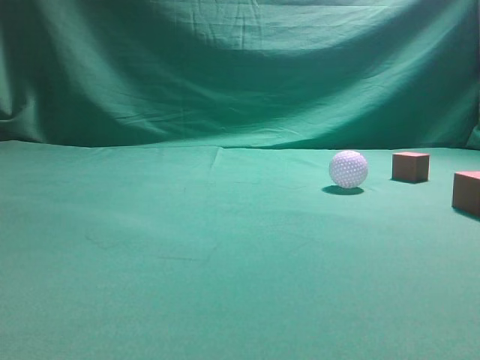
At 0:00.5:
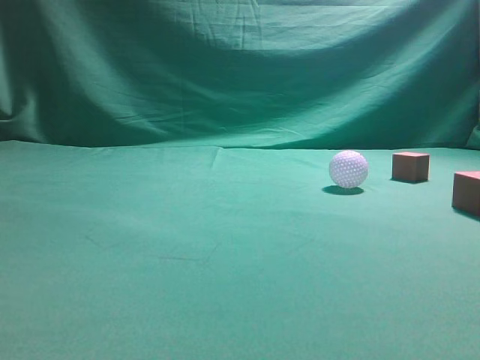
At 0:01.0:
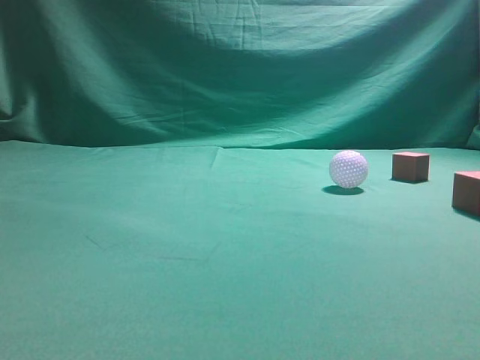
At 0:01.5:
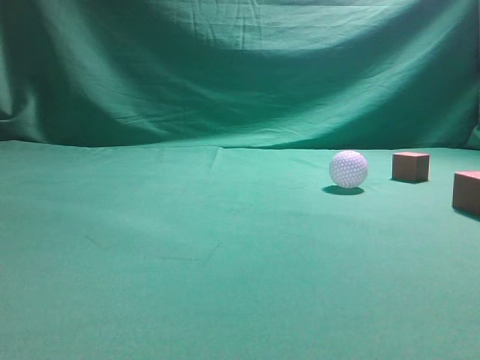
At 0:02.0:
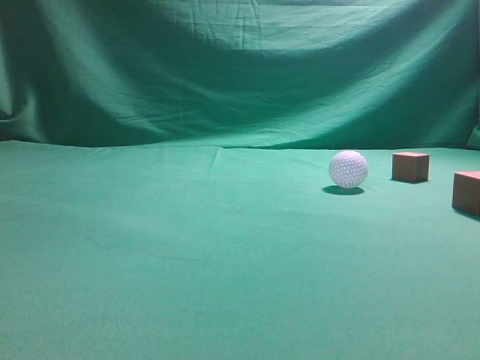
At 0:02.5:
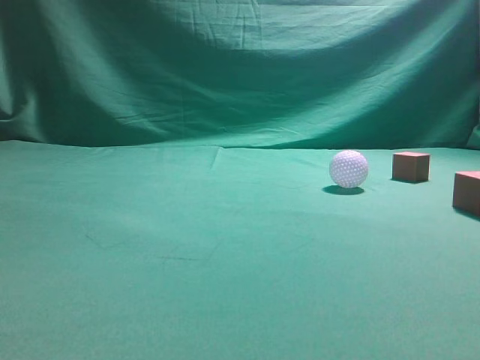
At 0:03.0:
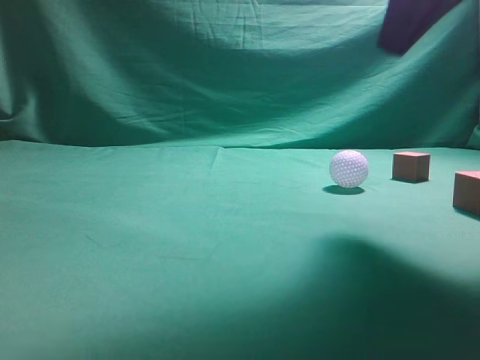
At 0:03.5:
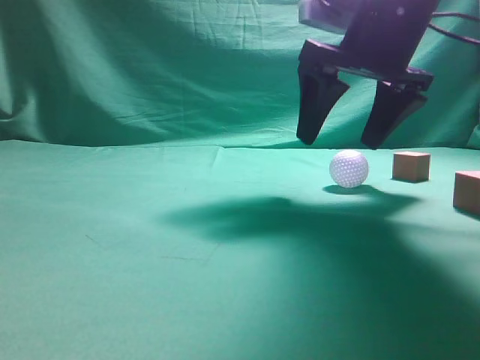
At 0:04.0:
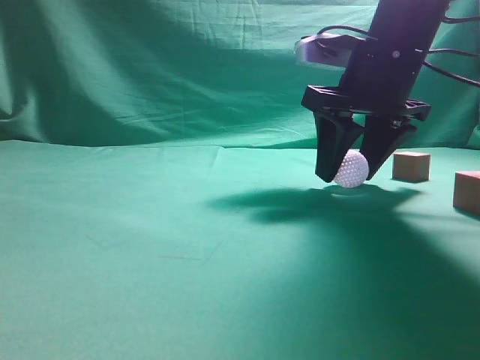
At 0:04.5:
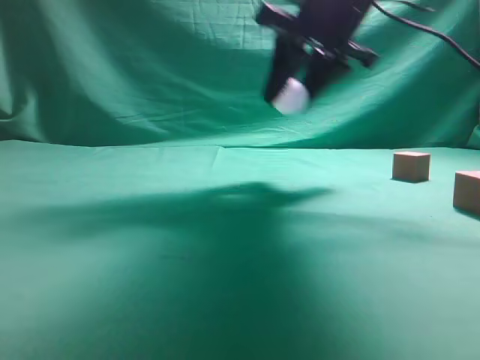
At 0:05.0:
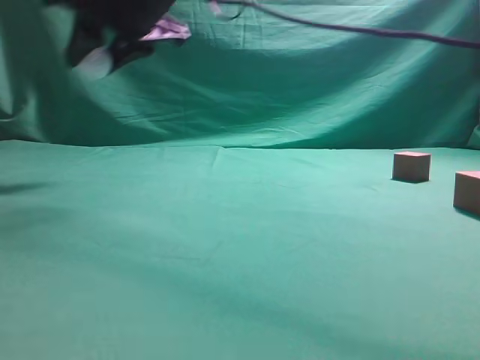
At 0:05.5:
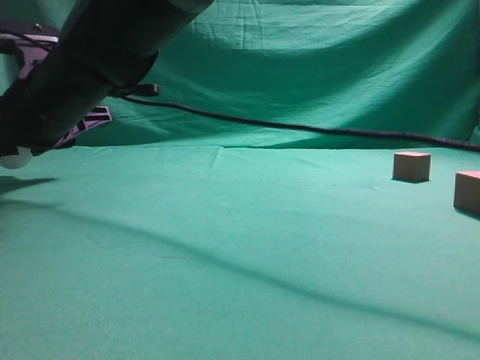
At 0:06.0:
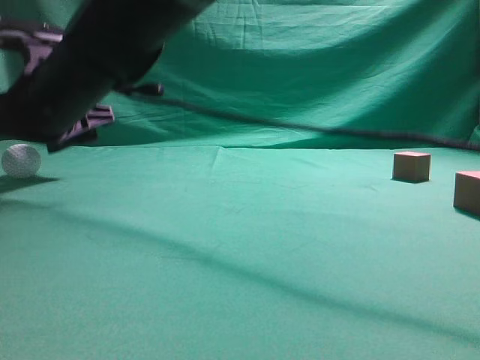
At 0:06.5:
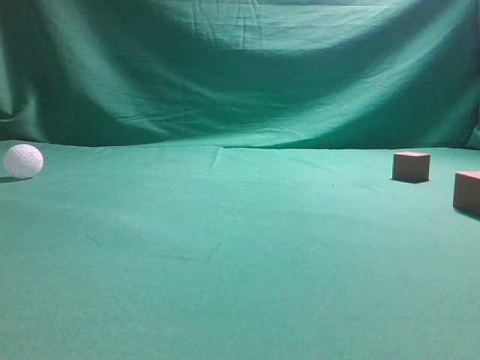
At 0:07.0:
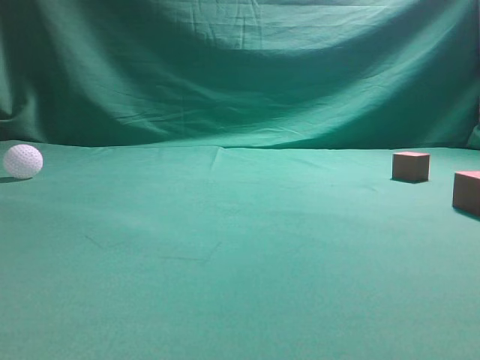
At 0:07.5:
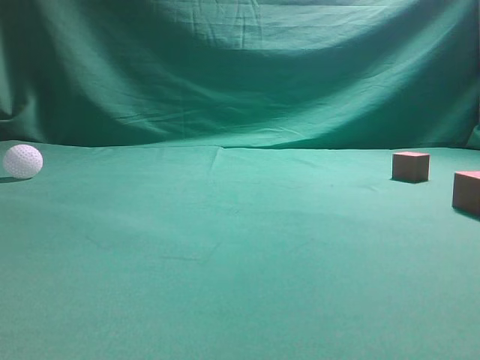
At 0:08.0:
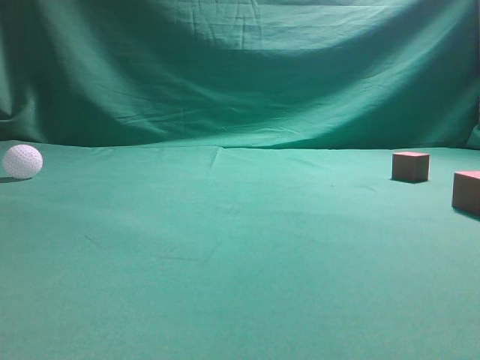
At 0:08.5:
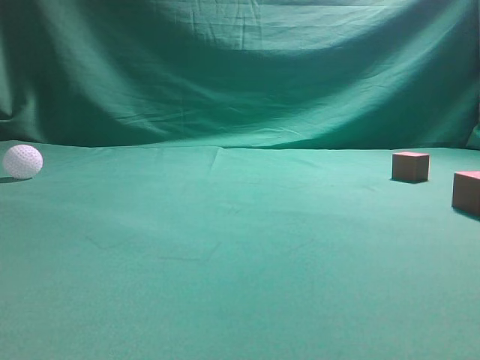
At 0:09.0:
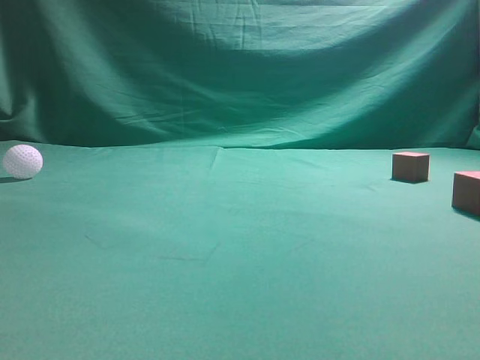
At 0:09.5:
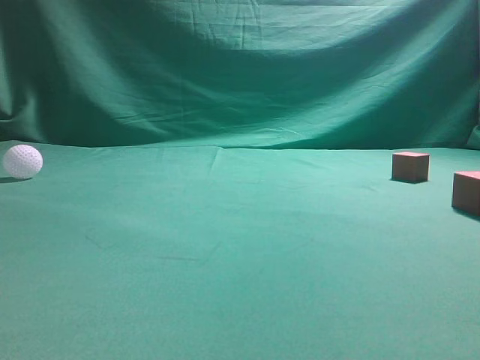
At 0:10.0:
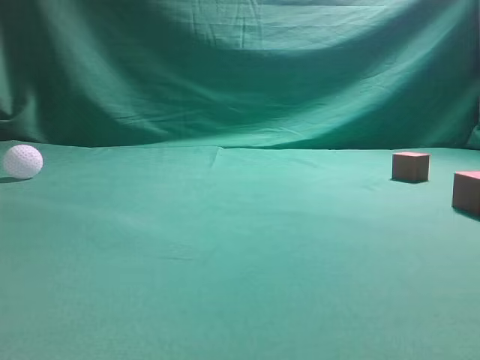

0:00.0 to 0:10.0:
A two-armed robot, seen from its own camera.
Step, 0:00.0 to 0:04.0: Grasp the spherical object on the right side.
0:02.0 to 0:04.0: The right gripper heads forward, to the left and downward, covering roughly 35 cm, and opens.
0:04.0 to 0:06.0: The right gripper moves to the left, approximately 30 cm.
0:06.0 to 0:08.0: The right gripper travels to the right, backward and upward by some 50 cm, and closes up.
